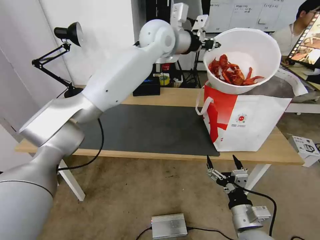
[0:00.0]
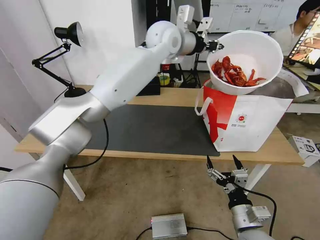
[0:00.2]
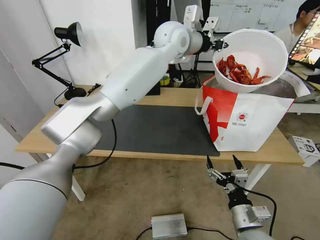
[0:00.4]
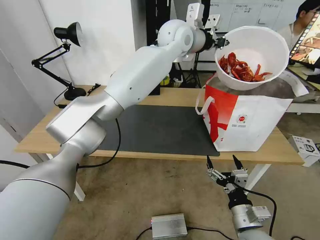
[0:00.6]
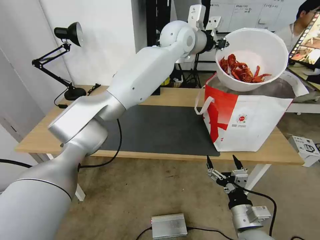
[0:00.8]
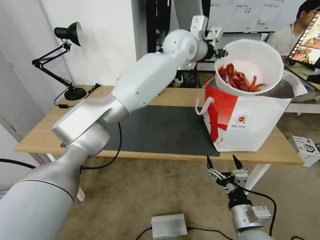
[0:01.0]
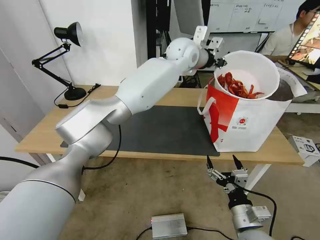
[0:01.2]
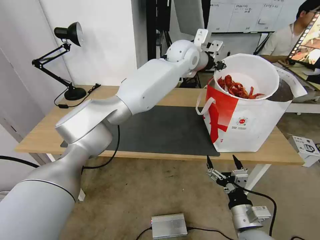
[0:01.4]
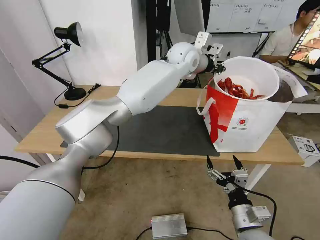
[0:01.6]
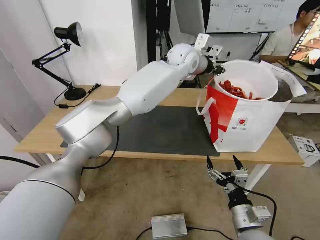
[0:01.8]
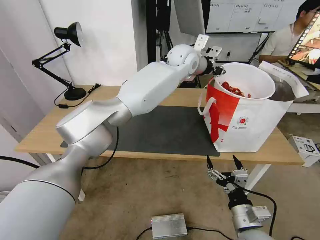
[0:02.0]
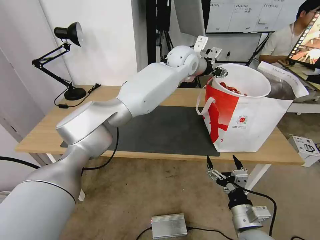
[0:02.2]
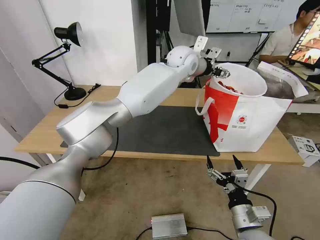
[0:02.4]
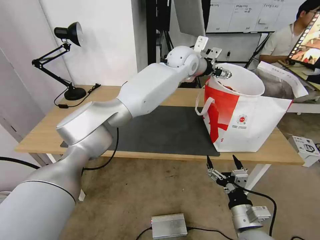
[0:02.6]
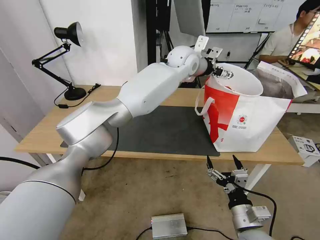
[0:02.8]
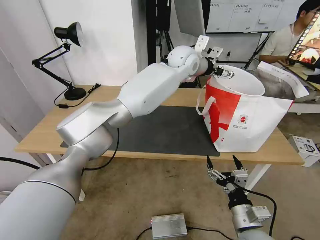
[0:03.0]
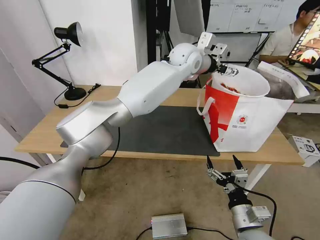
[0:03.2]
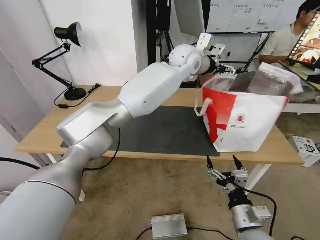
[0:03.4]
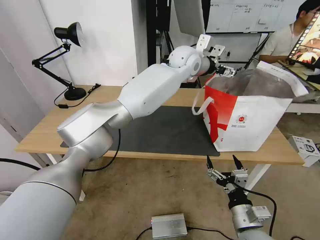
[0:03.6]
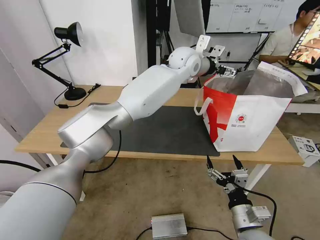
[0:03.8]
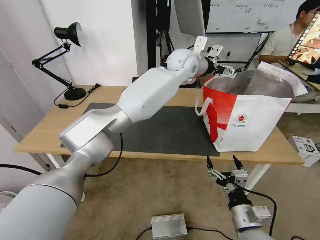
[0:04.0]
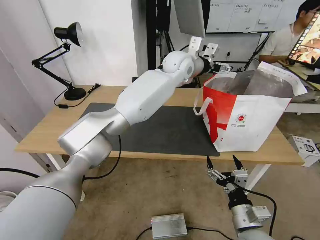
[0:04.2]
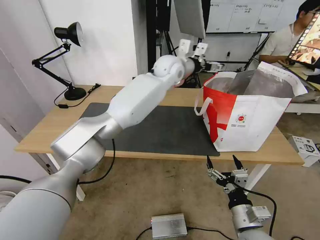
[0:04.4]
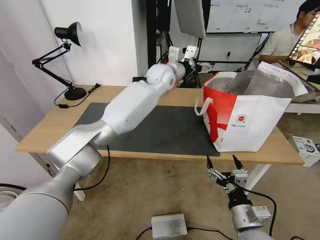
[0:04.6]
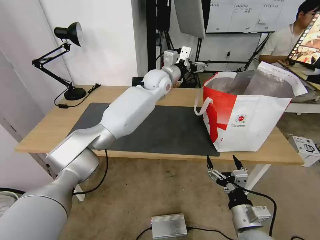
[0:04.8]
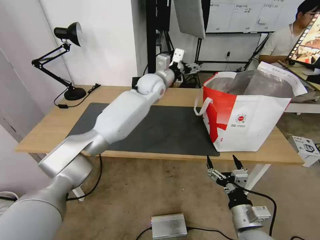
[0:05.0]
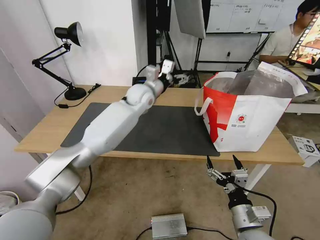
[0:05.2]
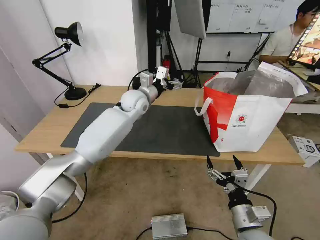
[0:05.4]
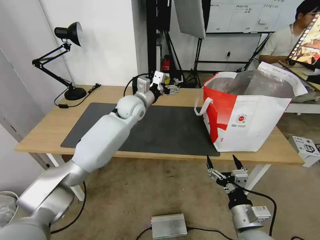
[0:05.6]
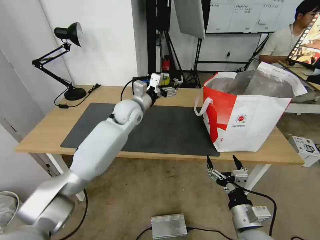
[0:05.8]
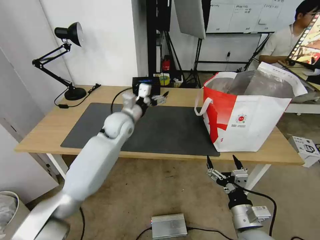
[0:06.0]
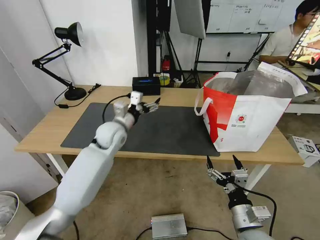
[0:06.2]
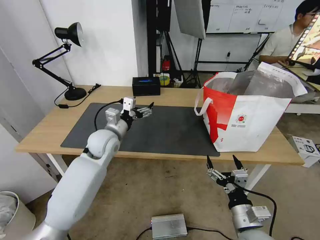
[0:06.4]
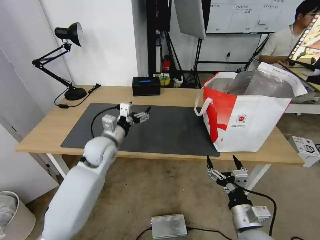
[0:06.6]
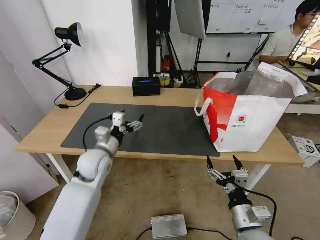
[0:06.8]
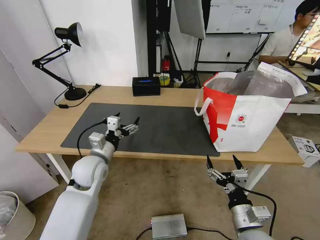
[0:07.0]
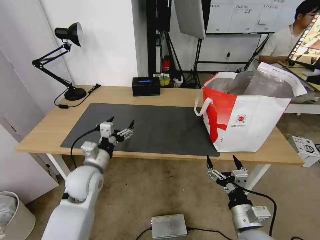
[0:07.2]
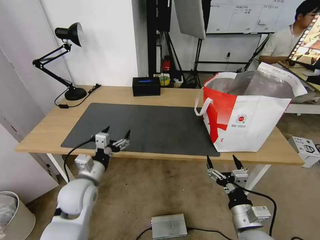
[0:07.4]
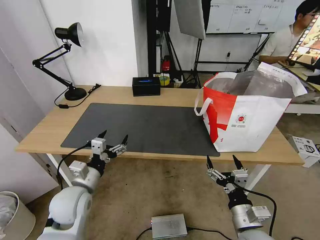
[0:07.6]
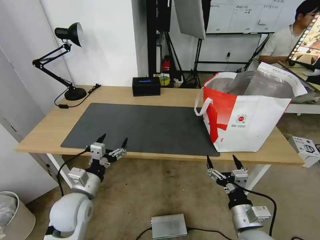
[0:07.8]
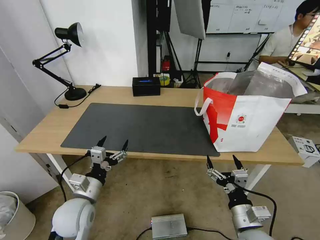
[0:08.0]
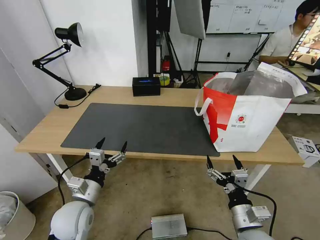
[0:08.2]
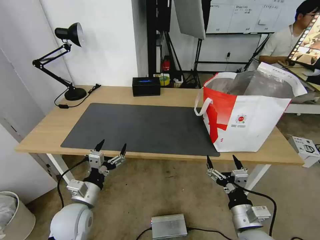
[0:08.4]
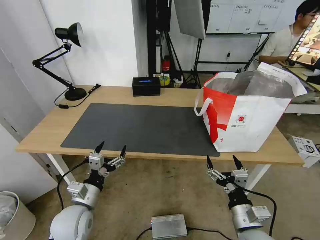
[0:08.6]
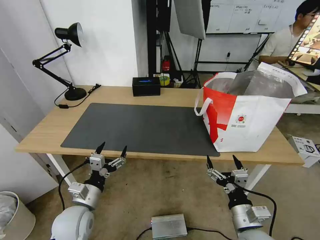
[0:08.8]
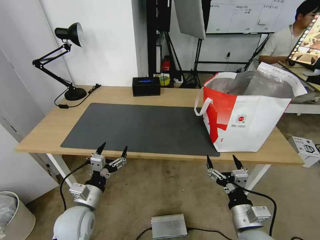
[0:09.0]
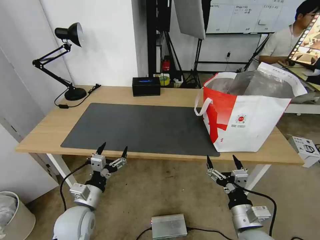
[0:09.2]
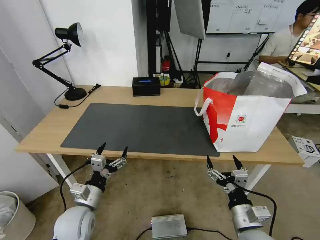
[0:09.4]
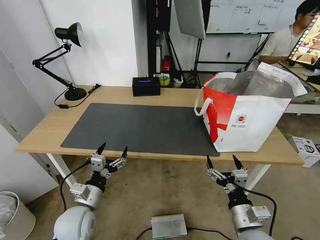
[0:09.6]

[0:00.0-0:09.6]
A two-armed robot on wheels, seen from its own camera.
Task of the whole recording: Pick up the trash from the table and place it into the takeout bag.
0:00.0 to 0:01.6: The left gripper is displaced to the right and downward by approximately 10 cm.
0:01.6 to 0:03.2: The left gripper opens its fingers.
0:03.2 to 0:04.8: The left gripper is displaced to the left and downward by some 10 cm.
0:04.8 to 0:06.4: The left gripper shifts some 30 cm to the left, backward and downward.
0:06.4 to 0:08.0: The left gripper moves backward and downward, some 20 cm.
0:08.0 to 0:09.6: The grippers stay close to where they were, moving slightly.
